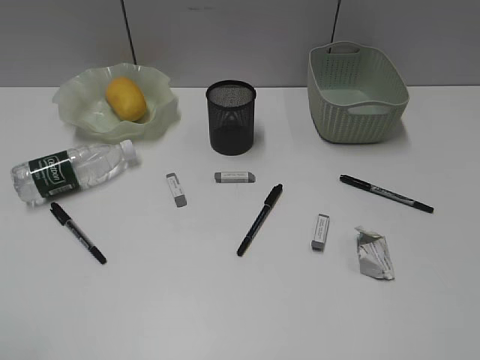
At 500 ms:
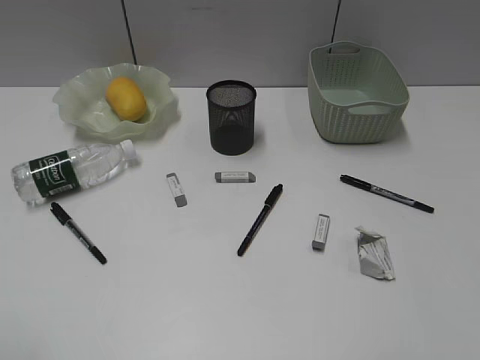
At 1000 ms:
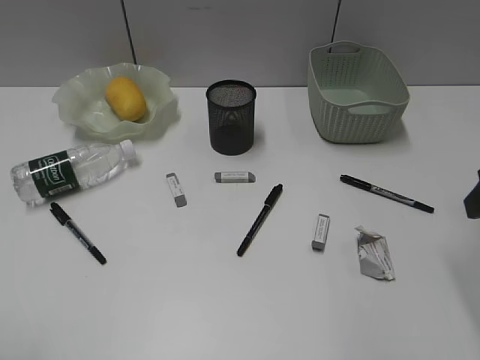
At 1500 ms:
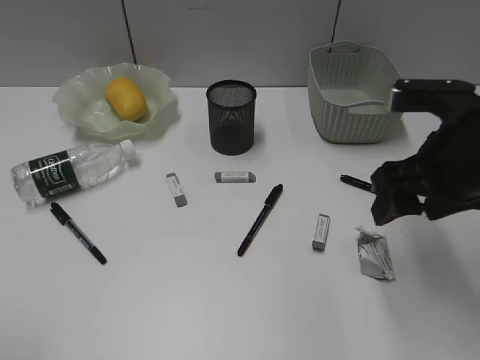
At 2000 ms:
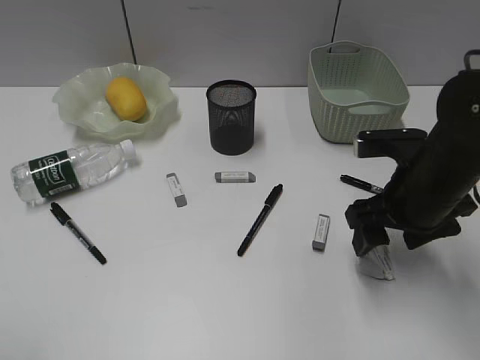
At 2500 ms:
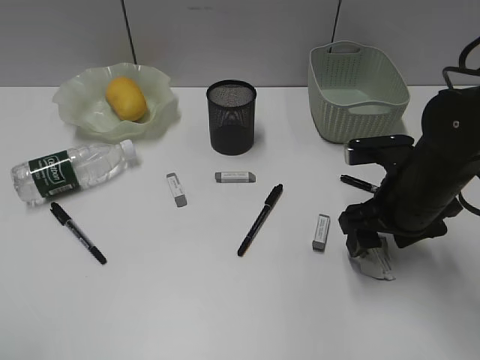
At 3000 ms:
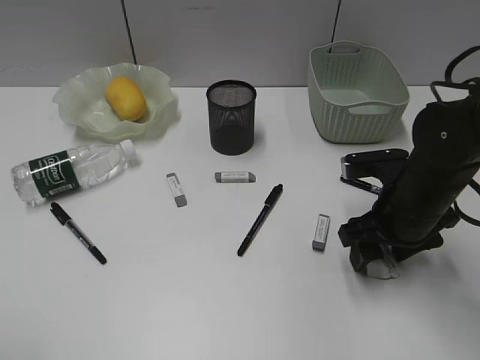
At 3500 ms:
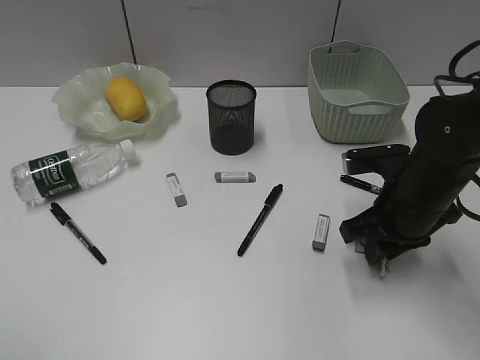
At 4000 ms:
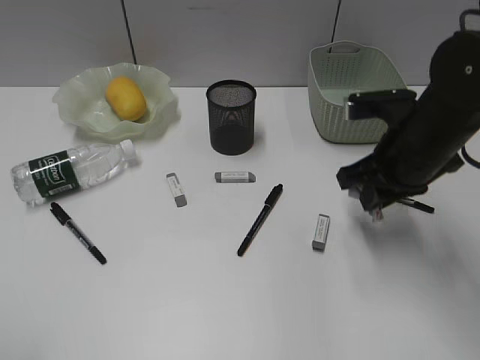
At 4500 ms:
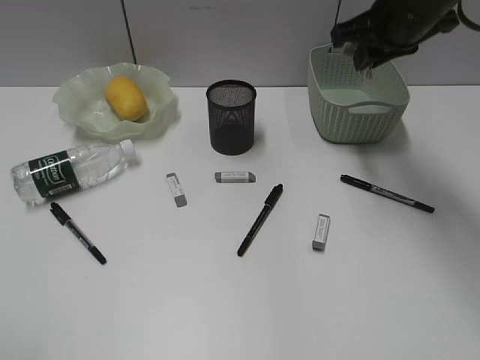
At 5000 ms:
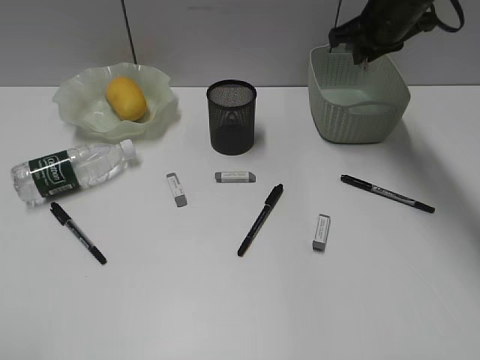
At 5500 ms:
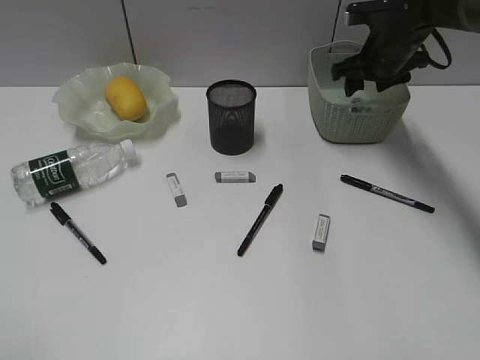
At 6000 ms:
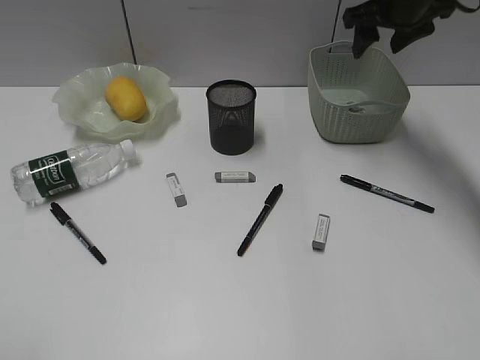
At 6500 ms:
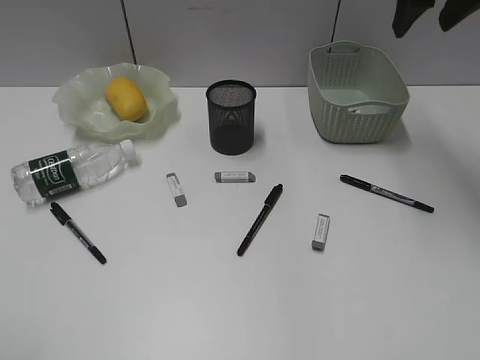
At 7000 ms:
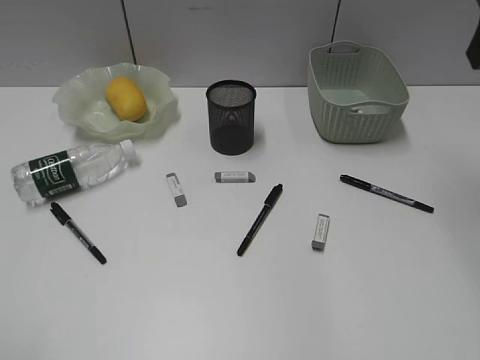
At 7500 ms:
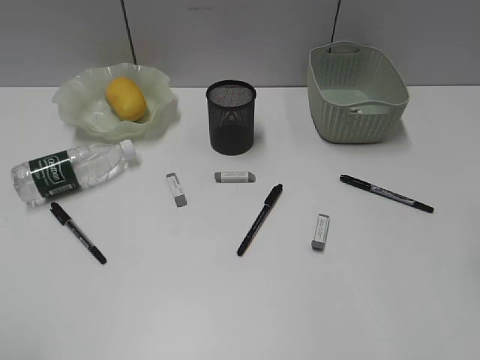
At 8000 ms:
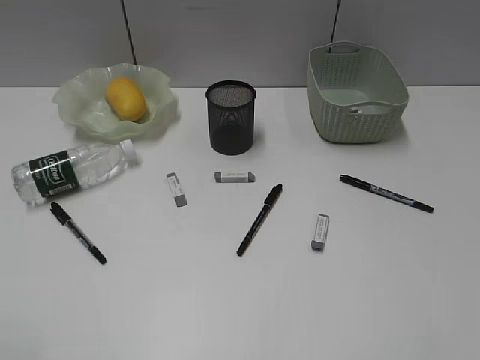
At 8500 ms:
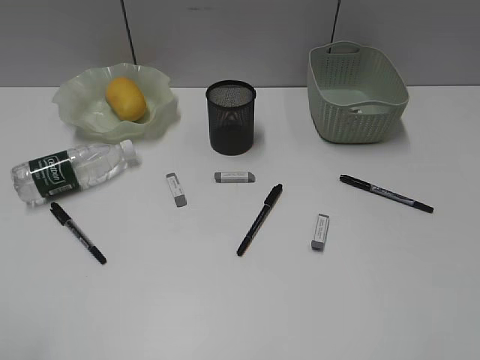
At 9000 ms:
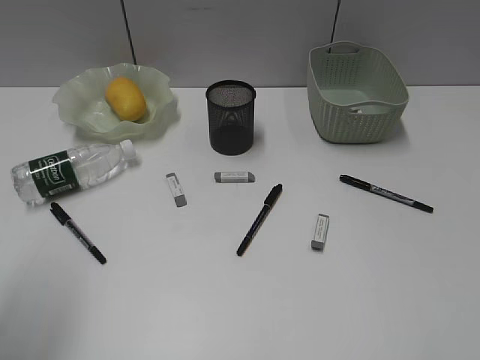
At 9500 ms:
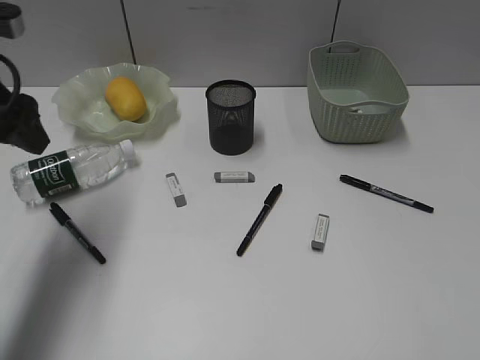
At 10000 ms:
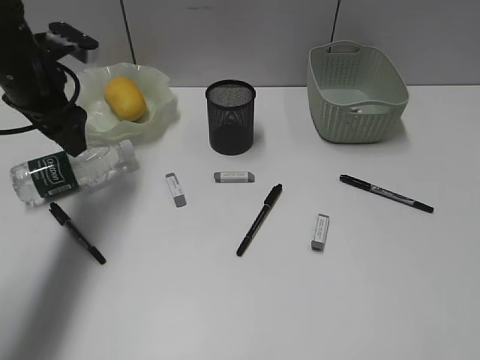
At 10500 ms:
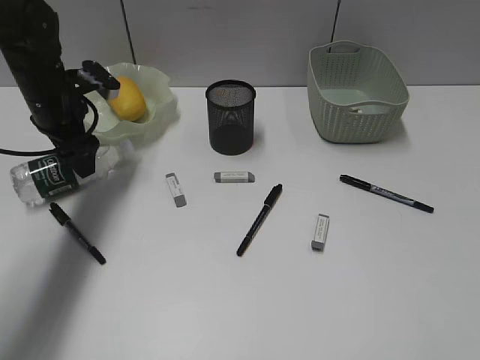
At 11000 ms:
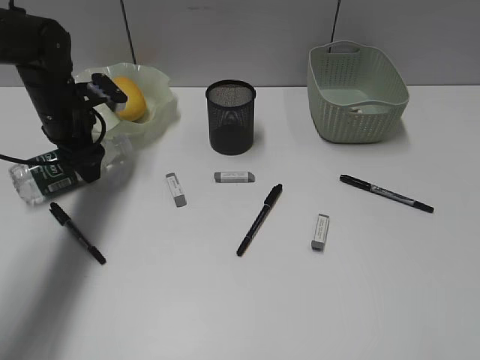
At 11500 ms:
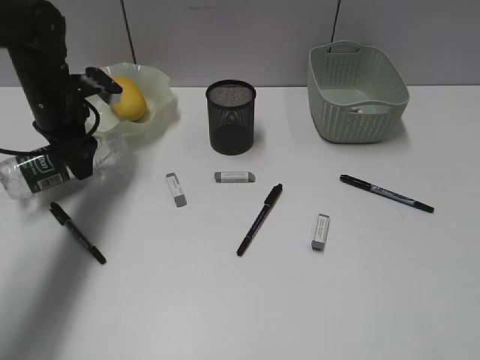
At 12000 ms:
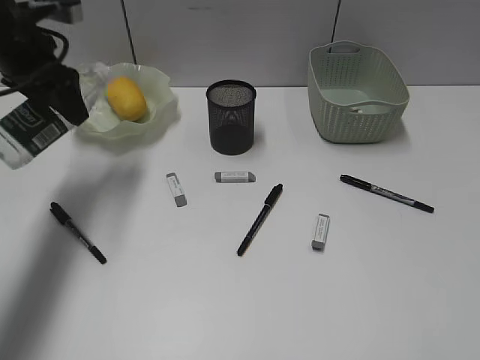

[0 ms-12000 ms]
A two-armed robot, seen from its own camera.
Step, 0 ms to 3500 ms: Grasp the waste paper with right gripper.
Step, 4000 ms to 5500 ms: Place the waste paper in the basket with right gripper.
Step, 6000 ms to 11000 ms: Grasp the bottle with left gripper.
0 ms to 2000 ms: The right gripper travels forward, downward and to the left by about 35 cm.
2000 ms to 4000 ms: The right gripper closes up.
4000 ms to 6000 ms: The right gripper goes some 20 cm forward and upward, and opens its fingers.
6000 ms to 8000 ms: The right gripper shifts approximately 40 cm backward.
8000 ms to 10000 ms: The left gripper moves forward, approximately 40 cm.

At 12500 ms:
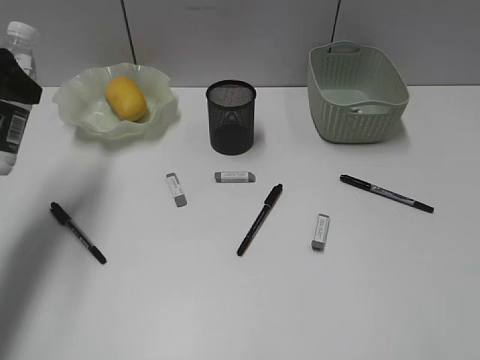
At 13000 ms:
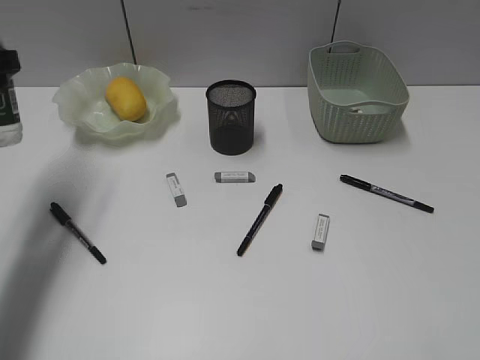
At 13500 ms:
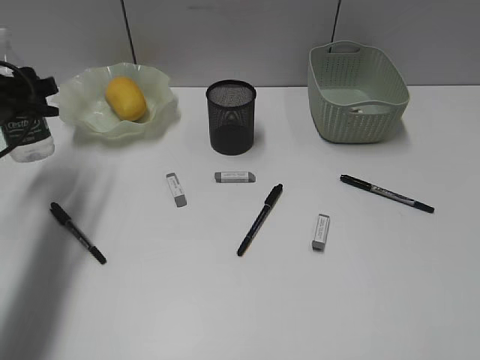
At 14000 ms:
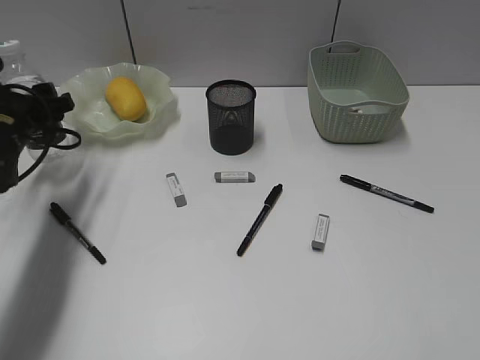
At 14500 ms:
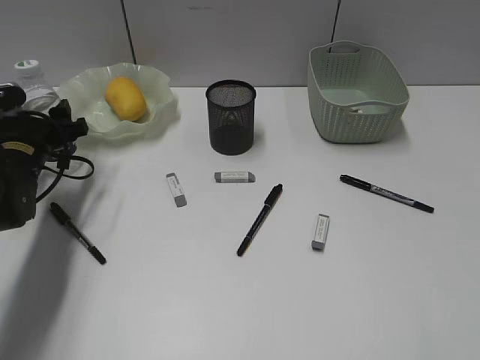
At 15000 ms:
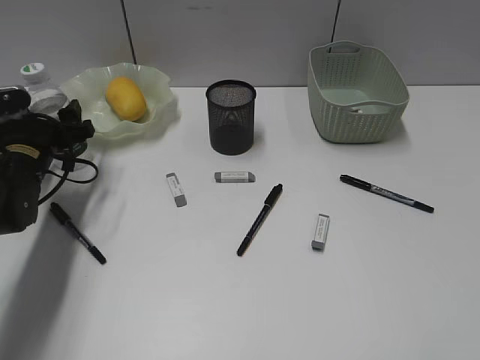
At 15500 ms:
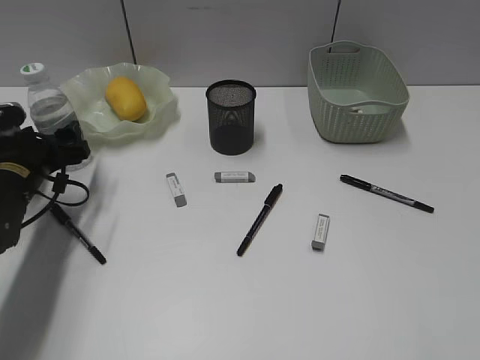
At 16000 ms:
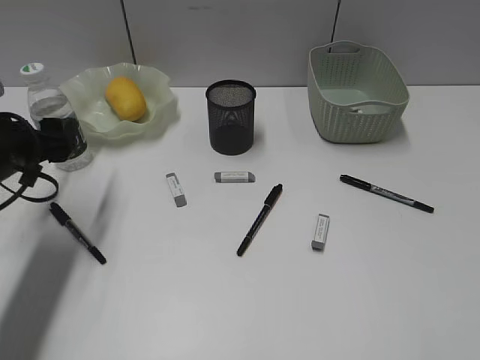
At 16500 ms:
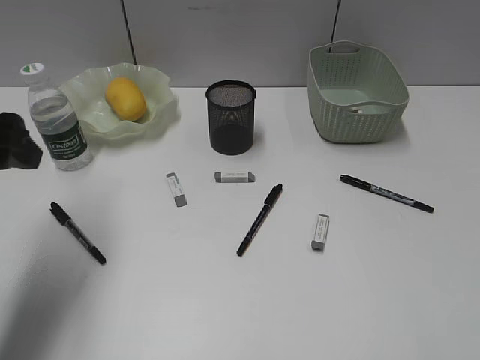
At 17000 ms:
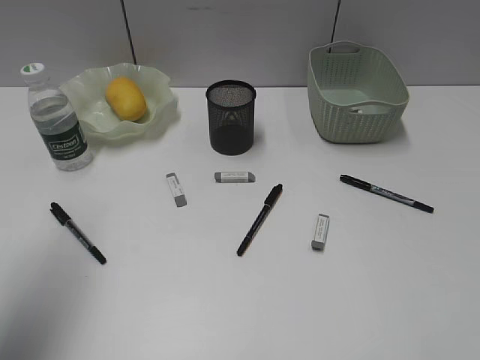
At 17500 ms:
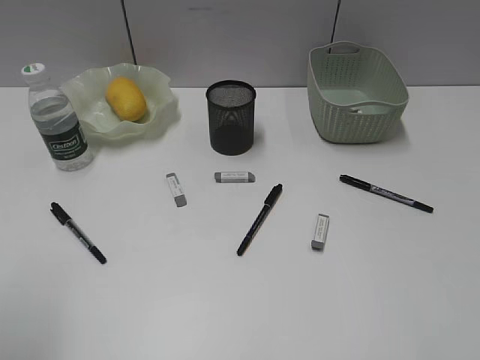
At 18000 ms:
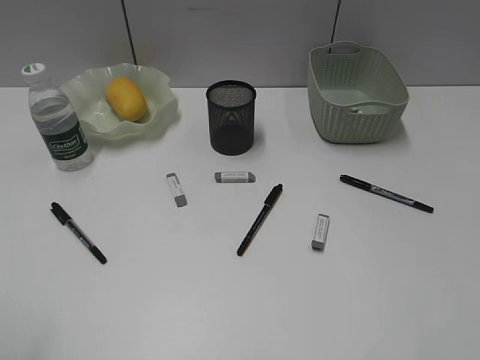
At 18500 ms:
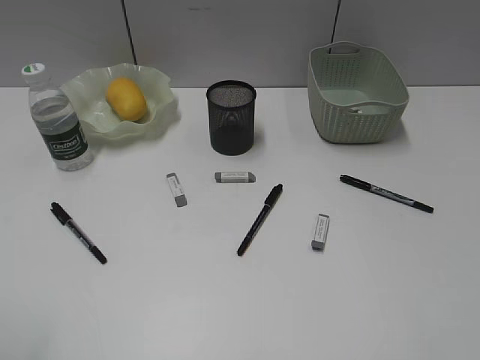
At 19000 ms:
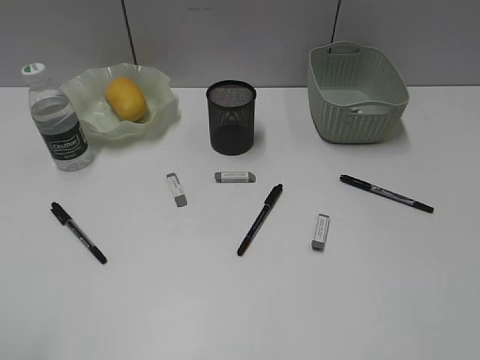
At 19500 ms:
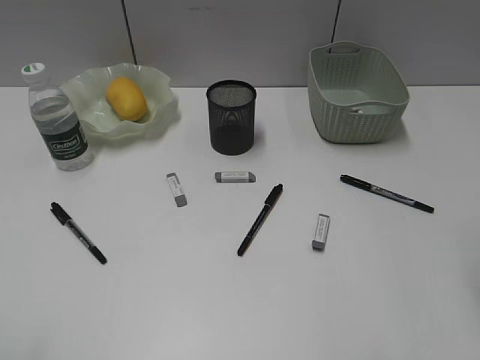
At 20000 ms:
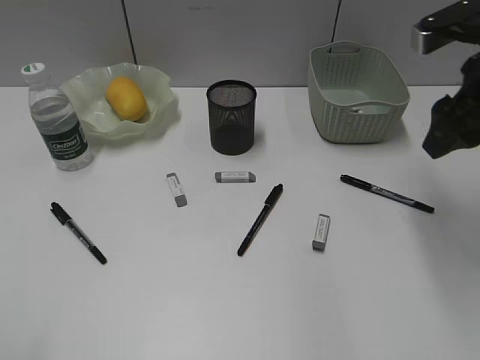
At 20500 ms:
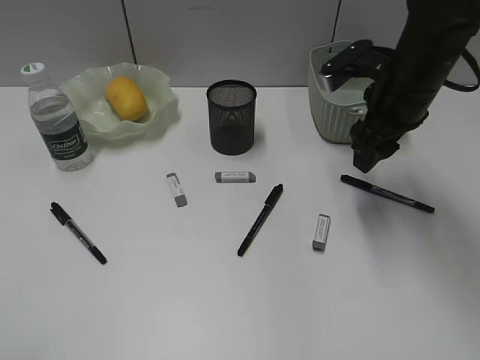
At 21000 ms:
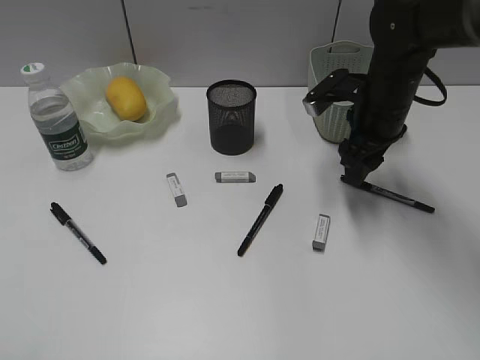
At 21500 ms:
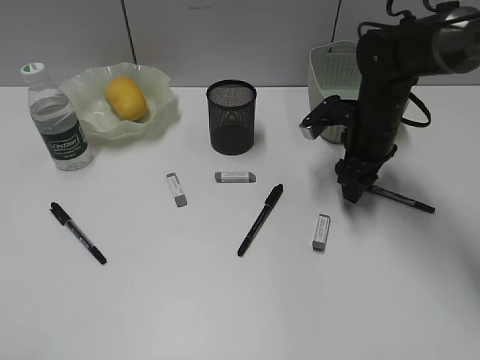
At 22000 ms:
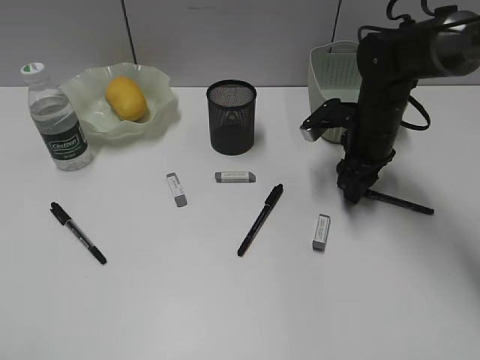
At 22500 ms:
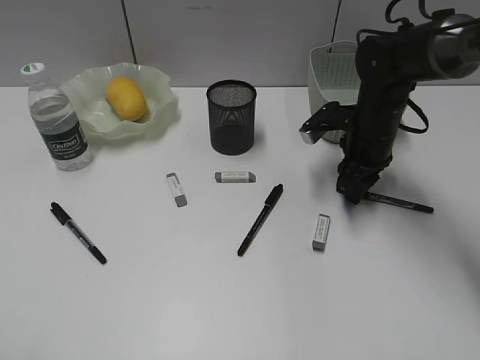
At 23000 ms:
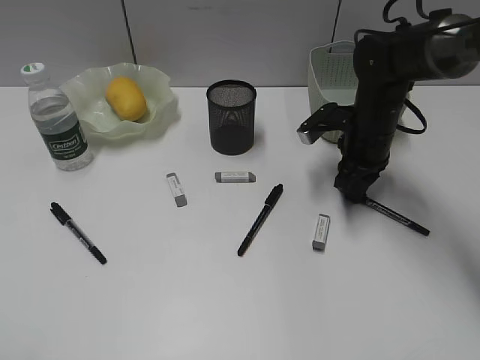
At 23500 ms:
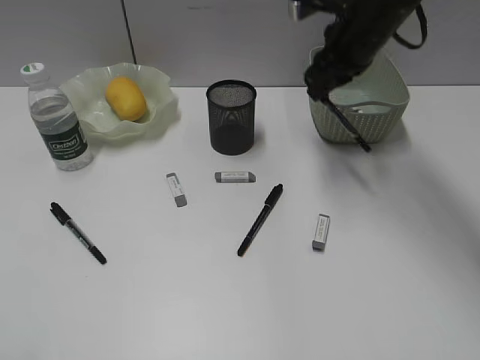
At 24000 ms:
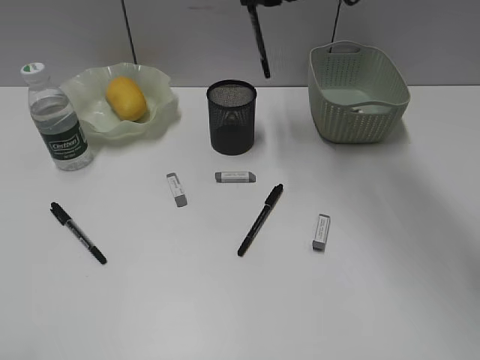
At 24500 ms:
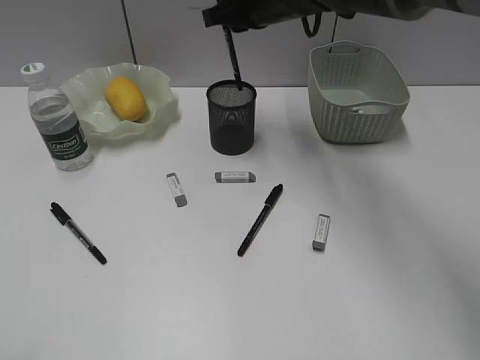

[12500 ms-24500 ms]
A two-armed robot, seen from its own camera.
Step, 12500 ms to 15500 ms: Stand the bottle with left gripper.
Step, 16000 ms to 23000 ms: Grasp the black pen with right gripper.
12500 ms to 14500 ms: The left gripper travels downward by some 20 cm.
14500 ms to 16500 ms: The left gripper is displaced upward and backward by about 20 cm.
16500 ms to 18500 ms: The left gripper shifts some 20 cm backward.
18500 ms to 20500 ms: The right gripper travels forward by roughly 35 cm.
20500 ms to 22500 ms: The right gripper shifts approximately 10 cm downward, and closes.
22500 ms to 24500 ms: The right gripper travels upward, to the left and forward by some 20 cm.

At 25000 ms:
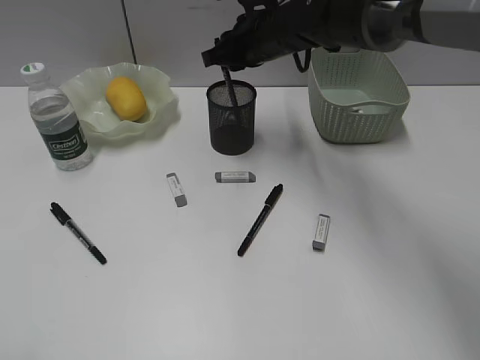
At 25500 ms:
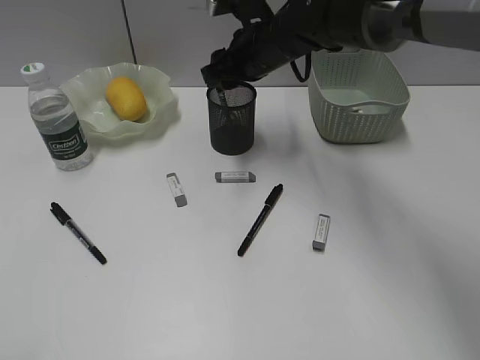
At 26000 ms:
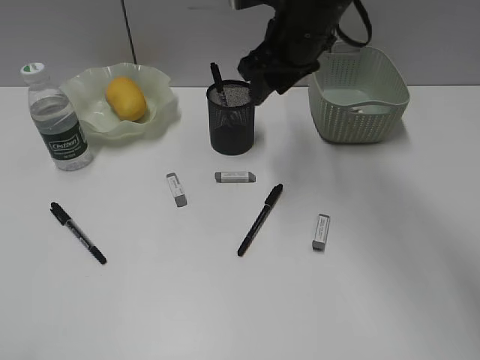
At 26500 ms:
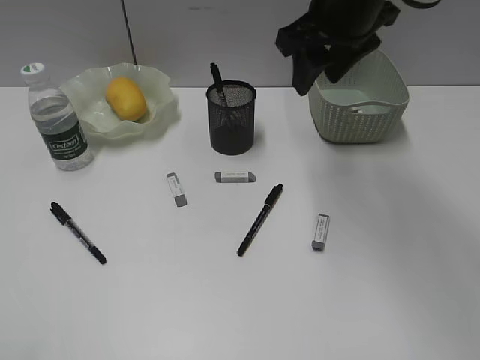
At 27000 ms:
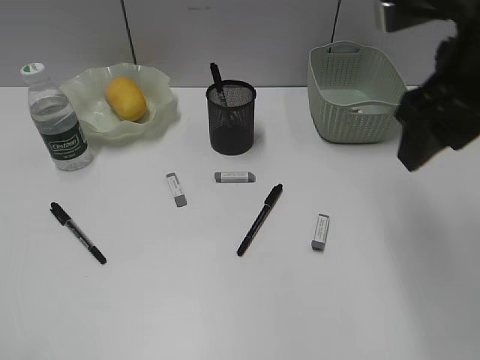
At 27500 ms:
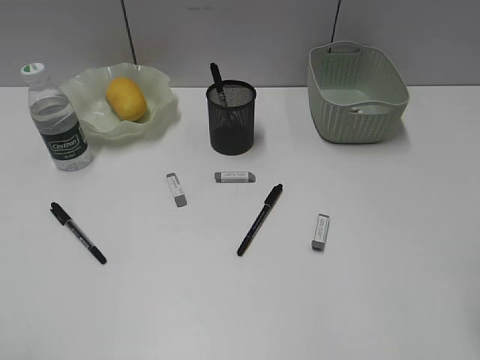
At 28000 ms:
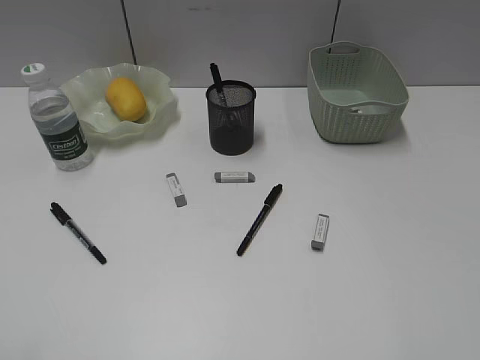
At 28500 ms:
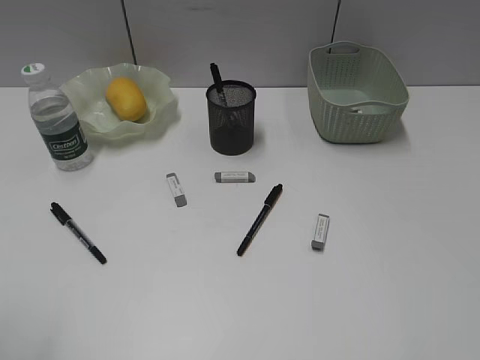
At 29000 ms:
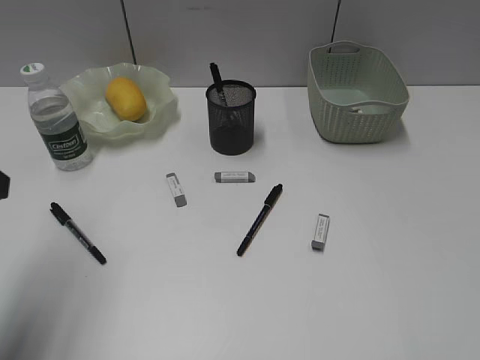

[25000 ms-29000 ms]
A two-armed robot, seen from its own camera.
25000 ms to 27000 ms: The right gripper is displaced backward, to the right and upward by roughly 30 cm, and opens.
27000 ms to 29000 ms: The left gripper travels forward by roughly 20 cm. Meanwhile the right gripper is displaced backward and to the right by about 25 cm.
